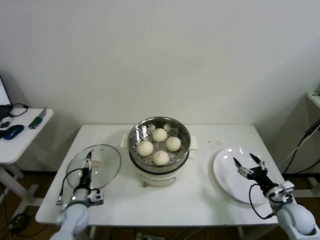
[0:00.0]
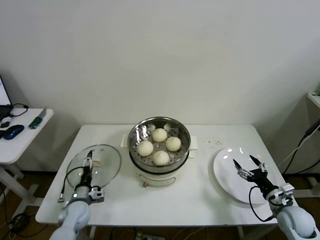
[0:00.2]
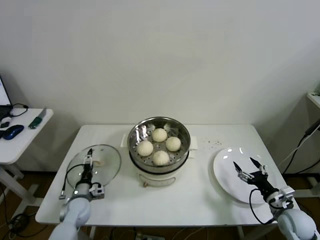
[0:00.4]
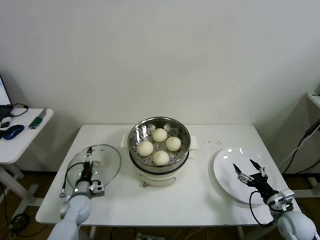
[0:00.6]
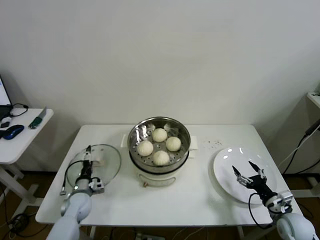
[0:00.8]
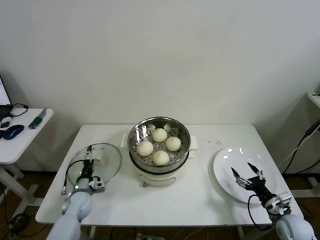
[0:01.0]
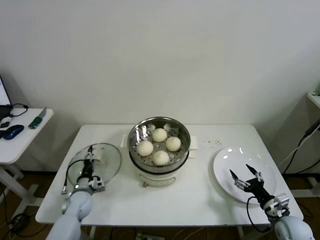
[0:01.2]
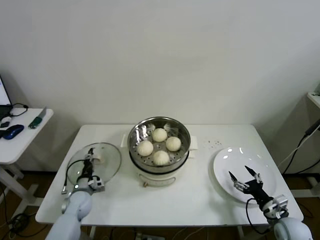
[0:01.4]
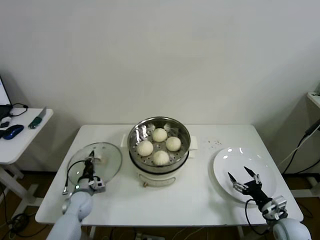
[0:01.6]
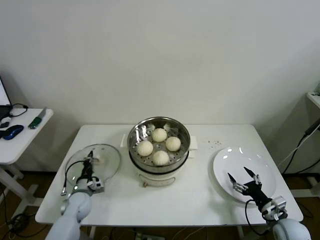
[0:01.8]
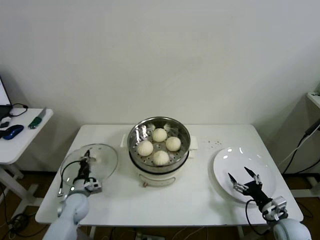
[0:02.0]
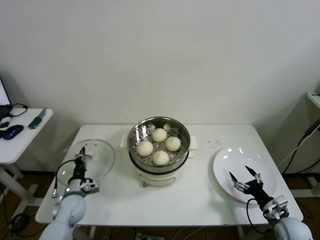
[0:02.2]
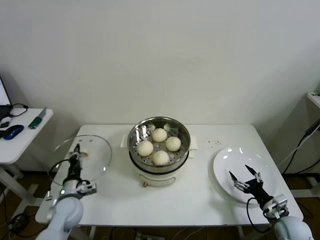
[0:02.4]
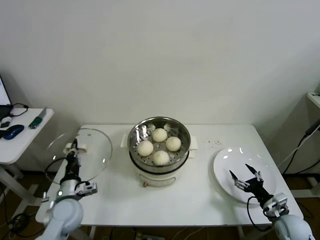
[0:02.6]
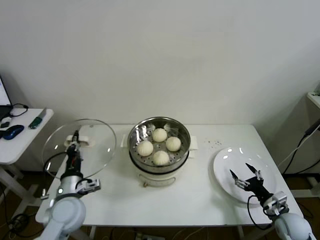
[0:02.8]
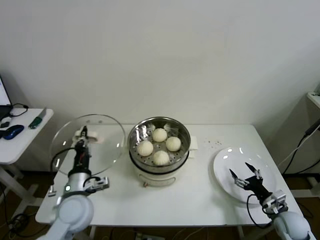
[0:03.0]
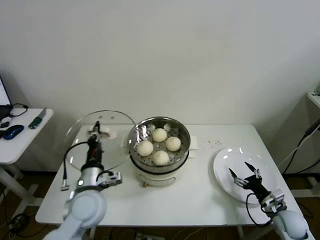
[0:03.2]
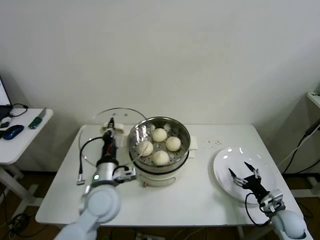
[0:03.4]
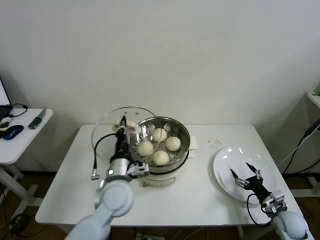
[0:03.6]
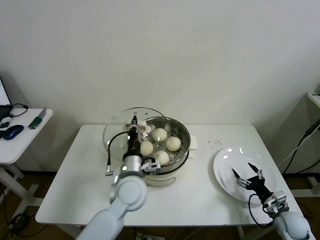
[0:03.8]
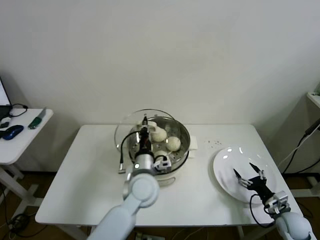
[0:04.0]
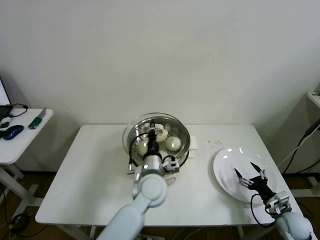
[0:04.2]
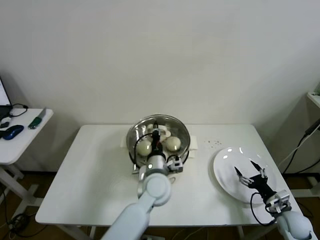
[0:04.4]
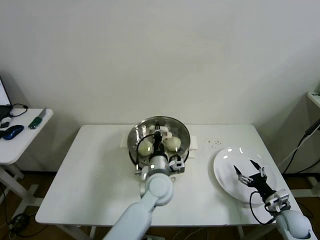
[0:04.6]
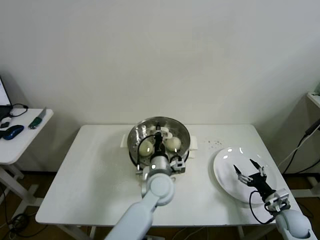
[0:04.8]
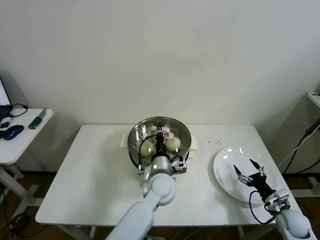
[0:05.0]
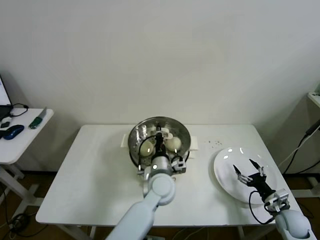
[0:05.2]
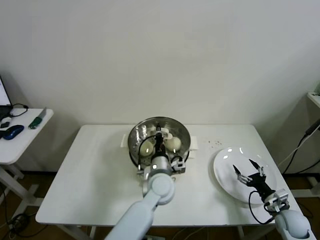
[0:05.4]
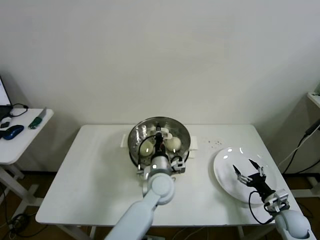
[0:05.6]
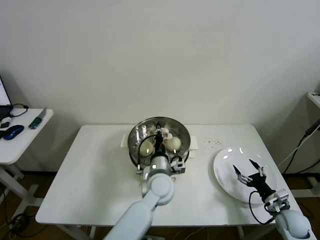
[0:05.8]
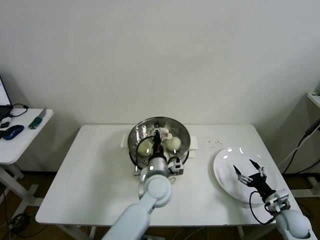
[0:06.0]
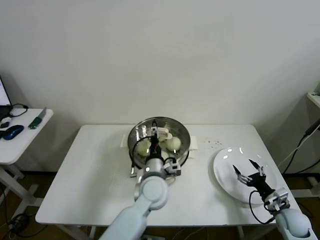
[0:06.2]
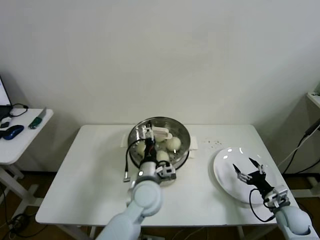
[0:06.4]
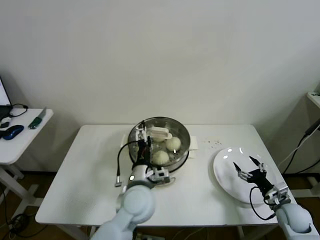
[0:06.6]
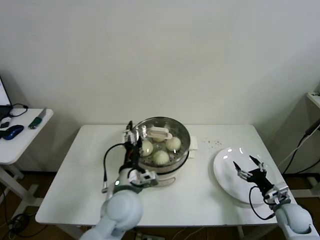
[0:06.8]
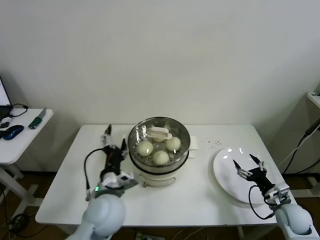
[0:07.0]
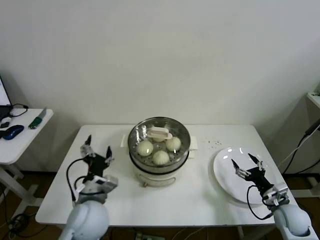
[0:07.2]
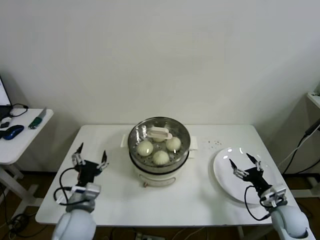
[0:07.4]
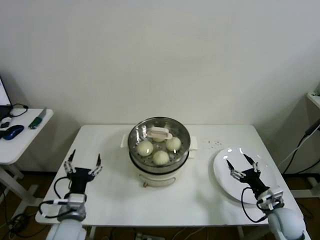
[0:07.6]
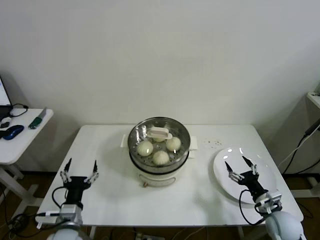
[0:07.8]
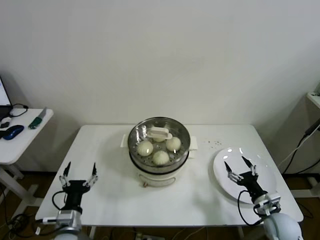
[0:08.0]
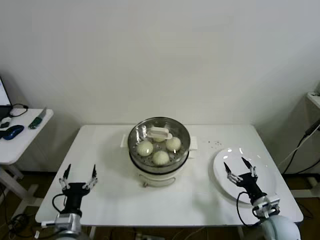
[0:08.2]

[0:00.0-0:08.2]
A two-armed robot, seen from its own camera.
Step, 0:01.8 to 0:05.8: Place the pot lid on the steamer with left gripper.
0:00.0 to 0:01.6: The left gripper moves forward, some 5 cm, and closes its fingers, while the right gripper moves approximately 5 cm.
0:01.6 to 0:03.2: The left gripper is displaced upward and to the right by approximately 25 cm.
0:03.2 to 0:05.0: The left gripper heads to the right, covering approximately 20 cm.
0:05.0 to 0:06.6: The left gripper goes about 10 cm to the left and backward, and opens.
0:06.6 to 0:08.2: The left gripper is displaced to the left, backward and downward by some 25 cm. The right gripper heads to the left, covering some 5 cm.

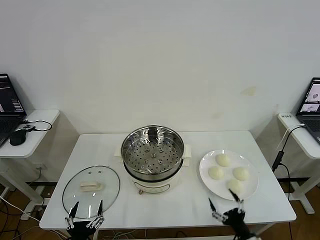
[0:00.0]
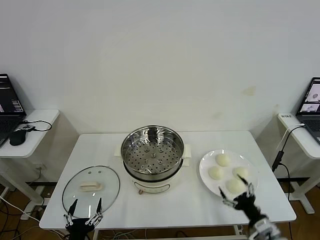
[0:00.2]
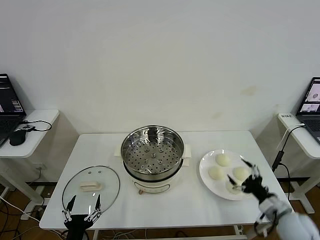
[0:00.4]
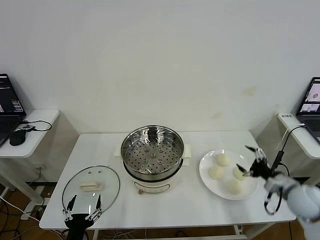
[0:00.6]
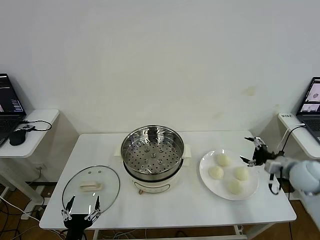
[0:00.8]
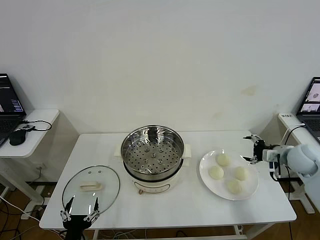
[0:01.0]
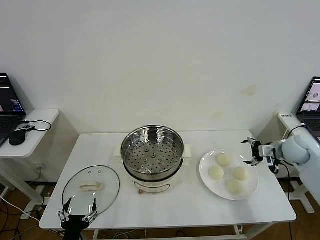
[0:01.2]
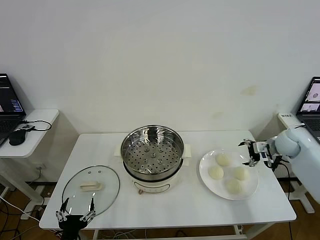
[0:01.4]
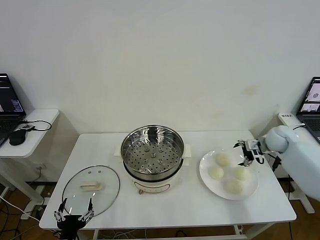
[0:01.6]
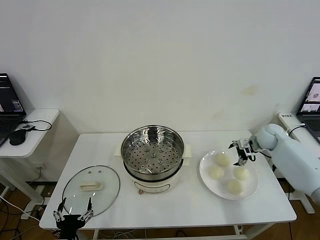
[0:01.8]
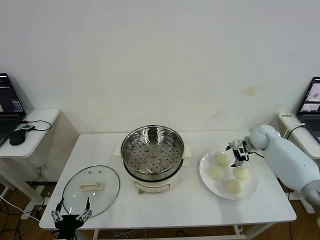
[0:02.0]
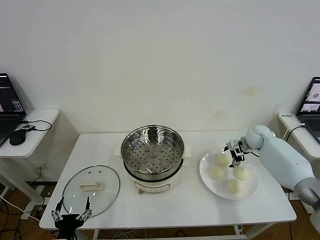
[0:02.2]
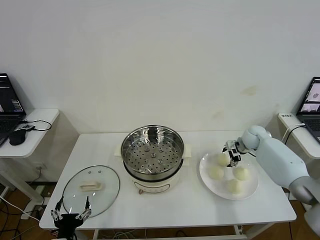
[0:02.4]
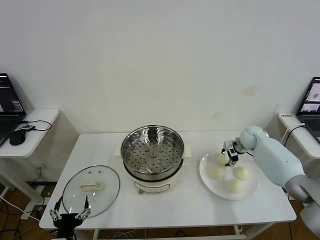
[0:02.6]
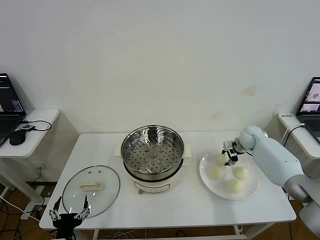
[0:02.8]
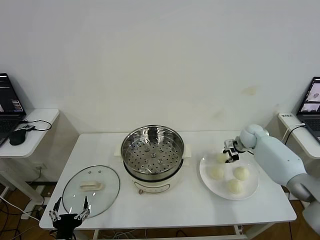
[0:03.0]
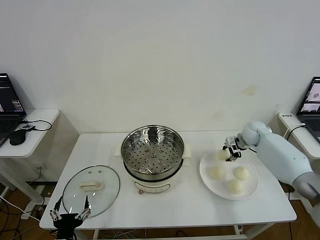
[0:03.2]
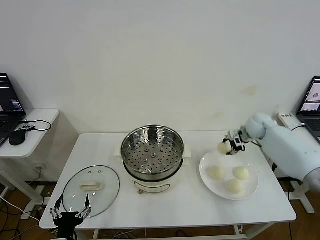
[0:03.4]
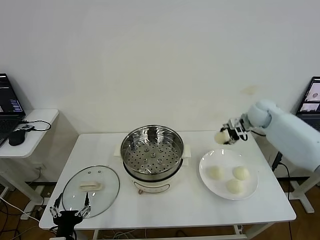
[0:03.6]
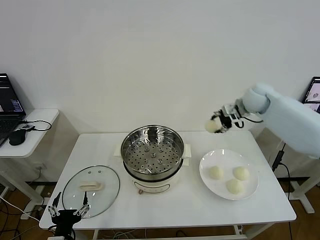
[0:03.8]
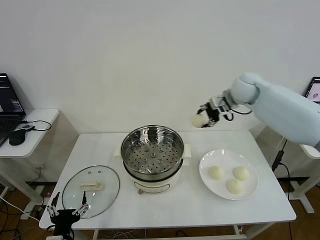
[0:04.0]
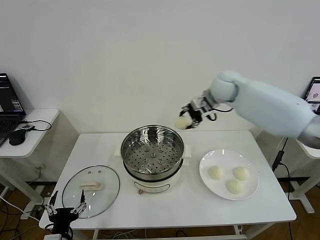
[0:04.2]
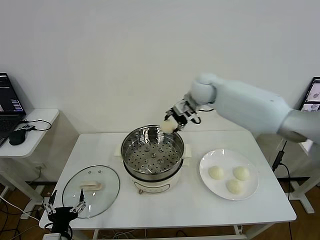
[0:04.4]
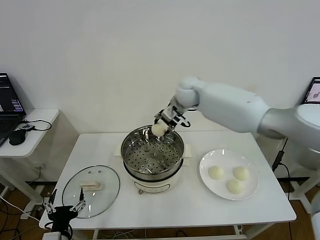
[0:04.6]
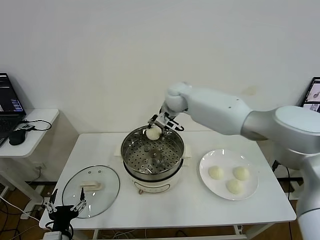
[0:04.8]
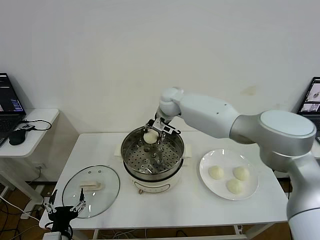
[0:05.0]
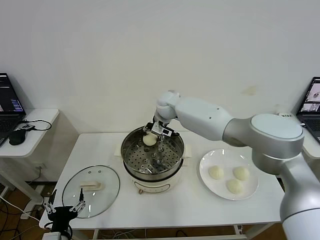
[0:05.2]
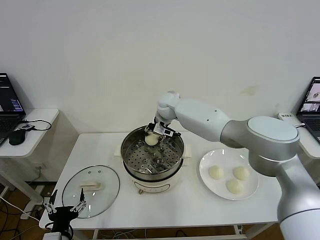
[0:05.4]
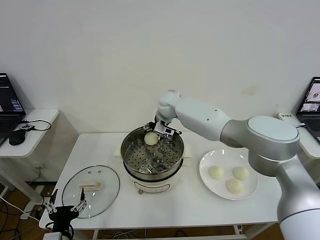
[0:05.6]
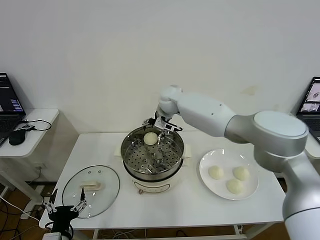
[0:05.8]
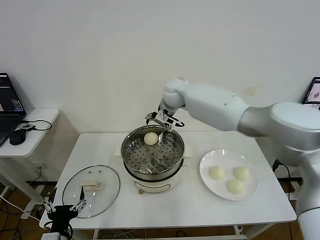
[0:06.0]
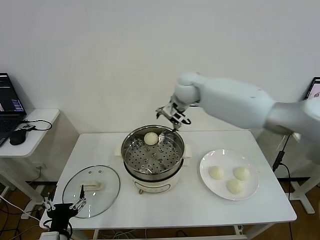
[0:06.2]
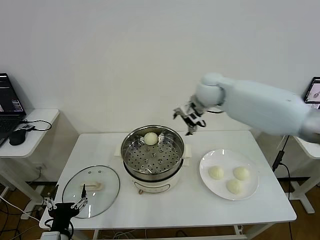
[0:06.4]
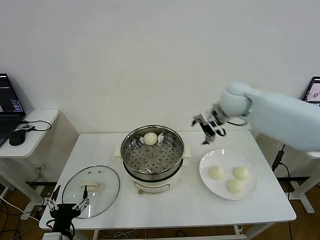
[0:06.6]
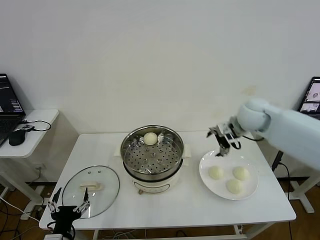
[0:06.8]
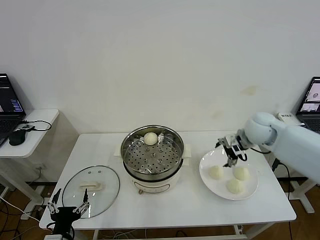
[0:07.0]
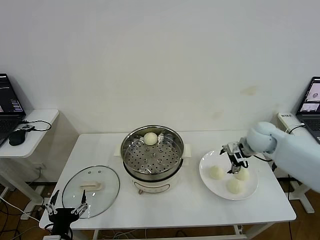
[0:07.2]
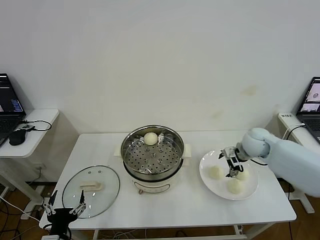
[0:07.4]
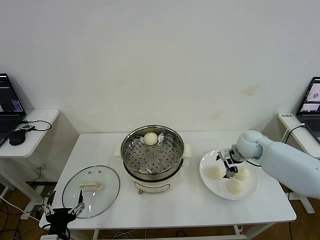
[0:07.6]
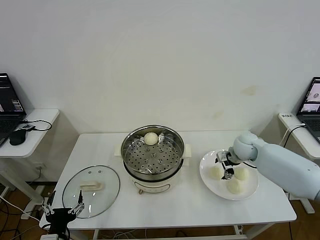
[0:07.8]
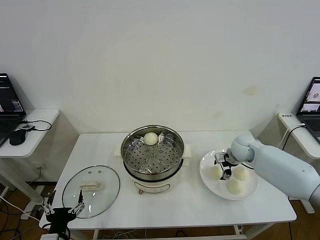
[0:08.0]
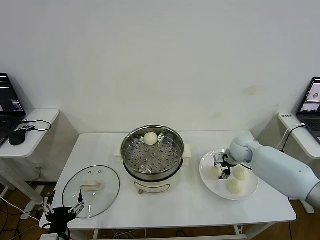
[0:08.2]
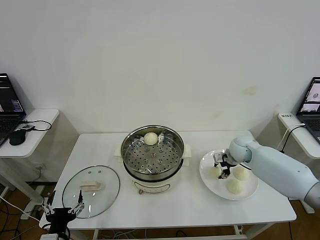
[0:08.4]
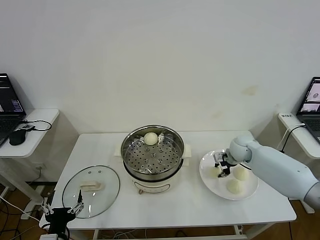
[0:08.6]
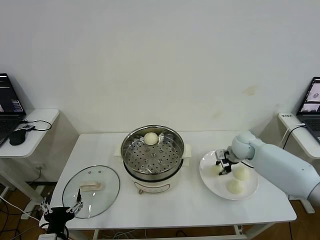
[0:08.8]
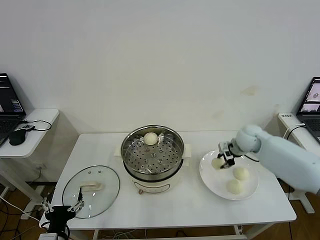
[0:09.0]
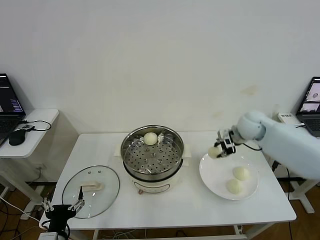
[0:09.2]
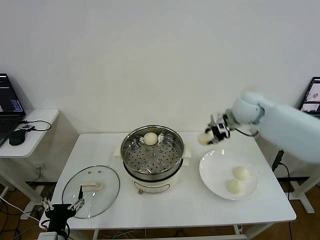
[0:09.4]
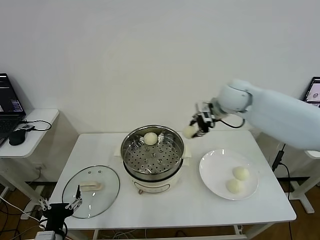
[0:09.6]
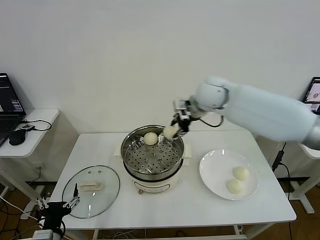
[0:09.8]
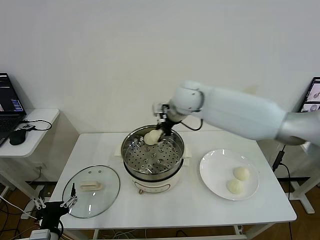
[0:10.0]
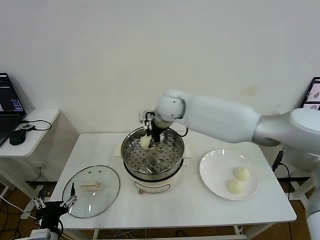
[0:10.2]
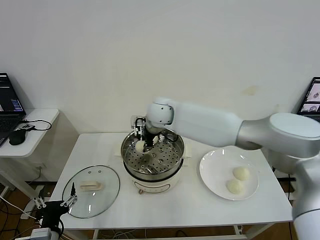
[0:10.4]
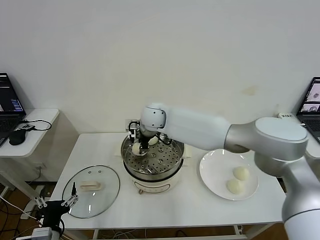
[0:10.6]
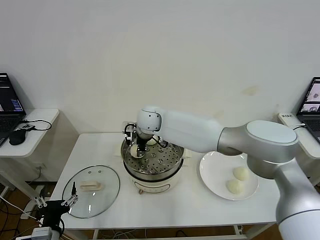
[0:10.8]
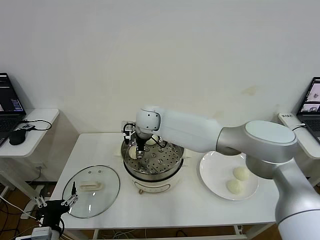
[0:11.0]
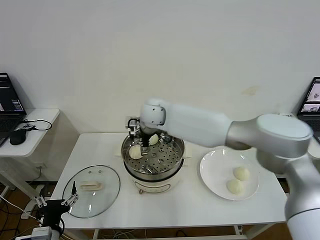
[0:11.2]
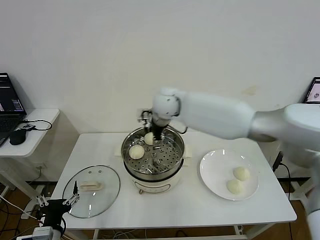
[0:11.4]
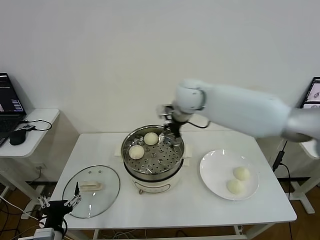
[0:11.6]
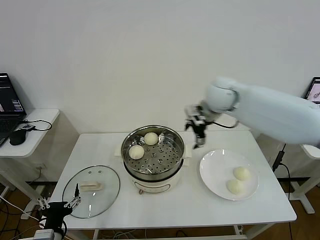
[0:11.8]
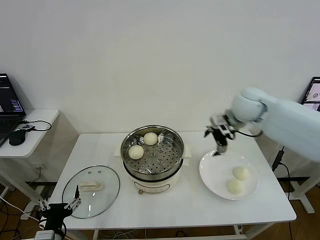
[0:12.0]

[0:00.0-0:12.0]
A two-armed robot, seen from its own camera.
Step, 0:00.0 to 0:03.0: Grasp the baozi in the plate with right gripper.
Step, 0:03.2 to 0:05.4: Place the baozi on the steamer with right gripper.
Step, 0:05.6 to 0:08.6: Grasp the baozi in the plate with right gripper.
Step, 0:08.8 to 0:11.0: Place the baozi on the steamer with right gripper.
0:01.6 to 0:03.0: The right gripper shifts by roughly 5 cm, and closes its fingers.
0:03.0 to 0:04.4: The right gripper heads to the left and upward, covering approximately 35 cm.
0:04.4 to 0:06.0: The right gripper moves some 10 cm downward and comes back, and opens.
0:06.0 to 0:07.6: The right gripper moves to the right and downward, about 30 cm.
0:07.6 to 0:09.0: The right gripper travels upward by roughly 5 cm, and closes up.
0:09.0 to 0:10.4: The right gripper shifts some 35 cm to the left.
0:10.4 to 0:12.0: The right gripper is displaced to the right by some 30 cm, and opens its fingers.

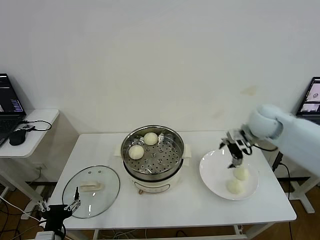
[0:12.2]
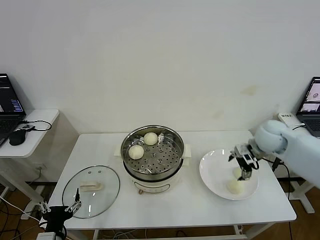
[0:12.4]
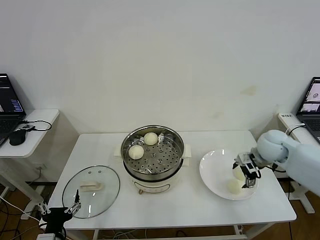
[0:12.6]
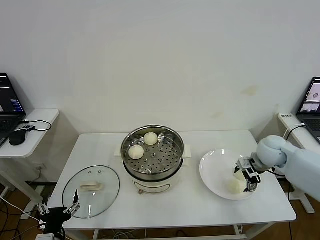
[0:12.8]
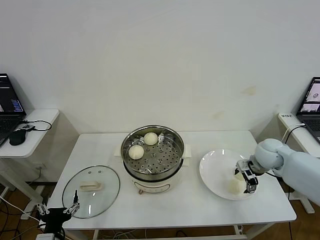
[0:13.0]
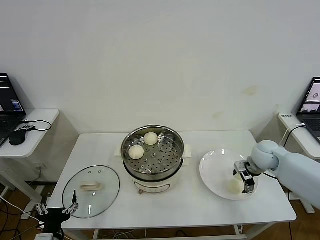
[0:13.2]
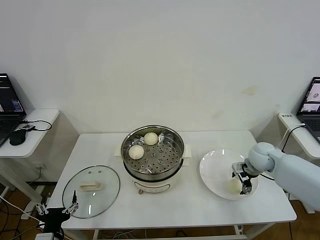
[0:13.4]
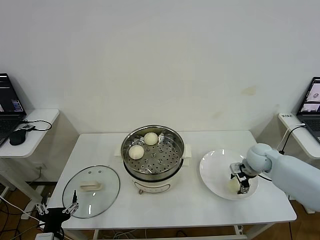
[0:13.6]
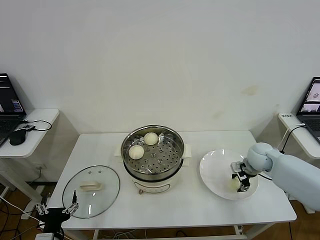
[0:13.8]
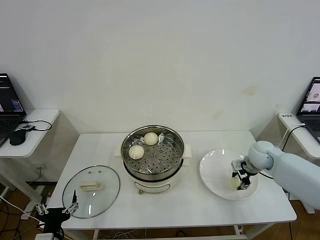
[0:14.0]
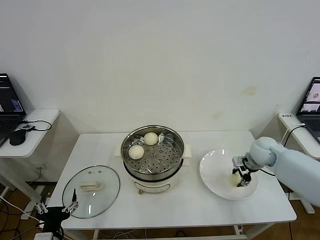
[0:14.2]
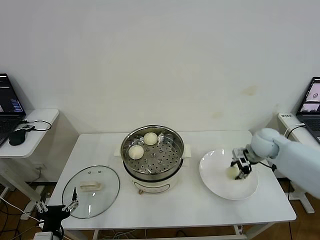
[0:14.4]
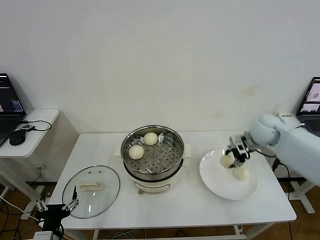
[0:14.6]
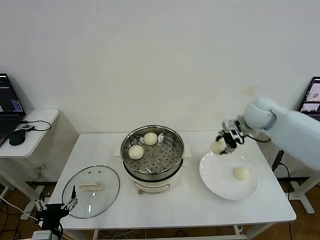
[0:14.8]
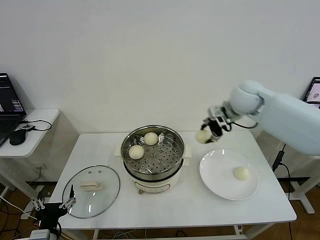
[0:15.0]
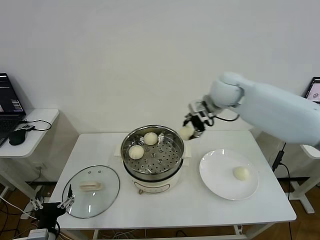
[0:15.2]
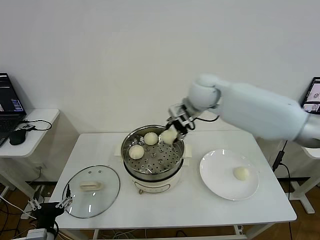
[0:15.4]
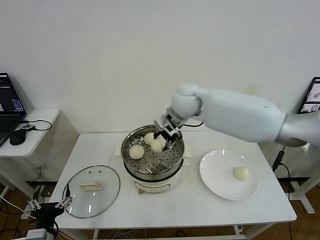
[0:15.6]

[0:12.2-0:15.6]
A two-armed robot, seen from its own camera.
Step, 0:12.2 to 0:13.8: Grasp the baozi in the plate with right gripper.
0:12.2 to 0:13.8: The right gripper moves downward, roughly 15 cm, and closes up.
0:13.8 to 0:15.6: The right gripper goes approximately 35 cm to the left and upward.
